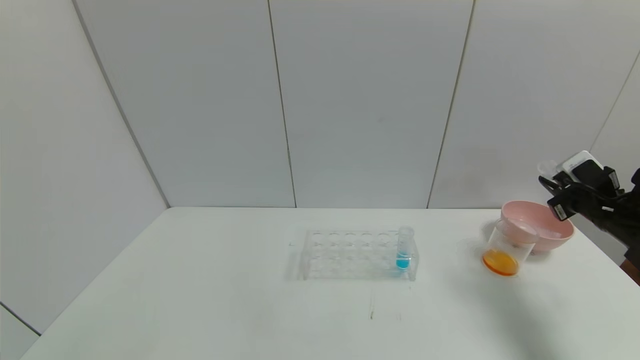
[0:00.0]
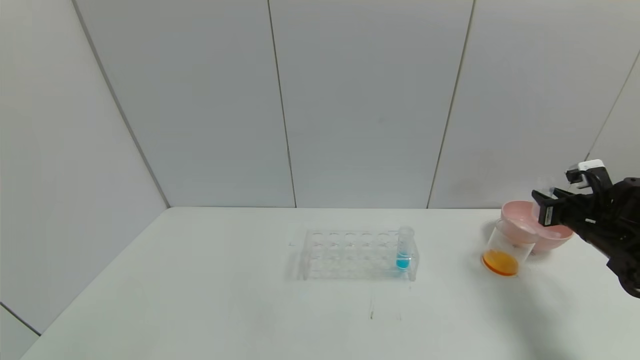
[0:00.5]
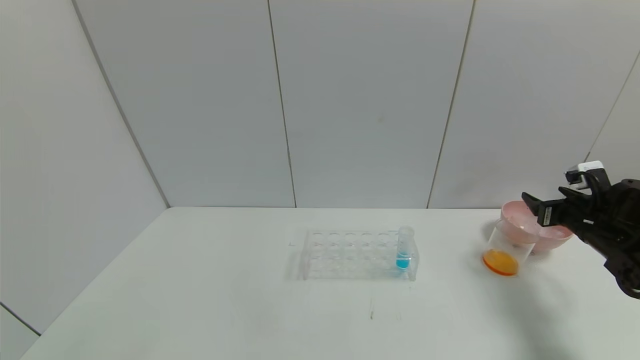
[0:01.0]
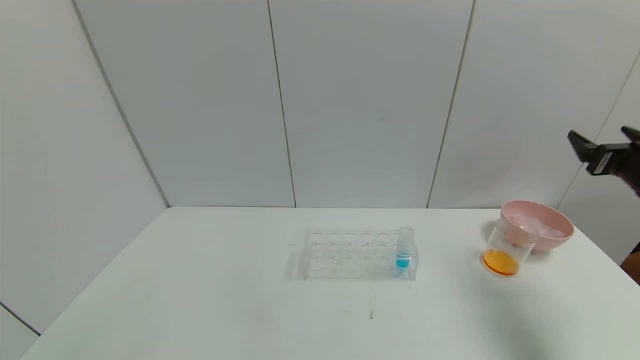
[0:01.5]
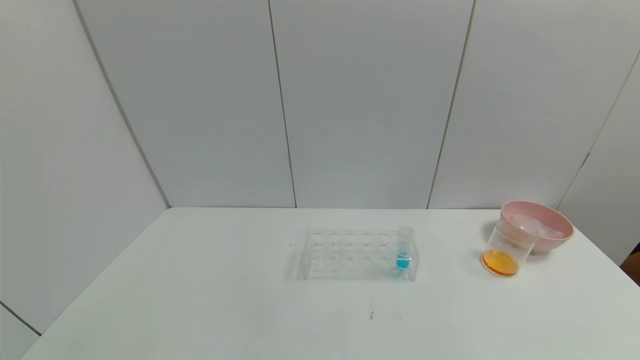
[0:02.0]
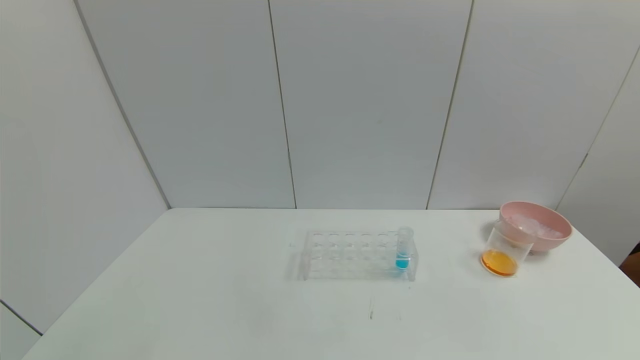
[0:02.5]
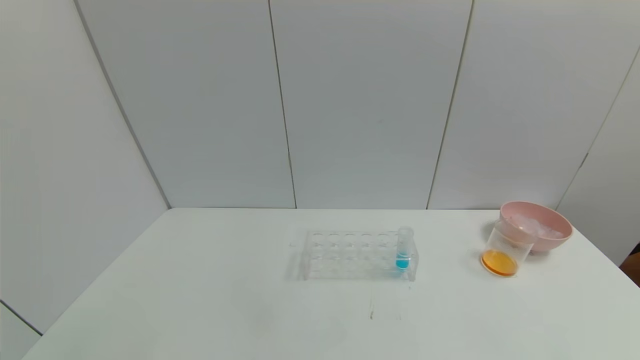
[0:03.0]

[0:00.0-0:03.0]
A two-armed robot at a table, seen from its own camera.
Task of the whole recording: pick up the test tube with yellow pigment and the test tube with red pigment by grippers and pour them into the beaker.
Step, 0:00.5 to 0:01.5: Place the test tube into the bowl with right gripper.
0:00.0 to 0:01.5: The right gripper travels upward by about 5 cm, and opens its fingers.
0:01.5 to 0:03.0: The right gripper heads backward, covering about 35 cm.

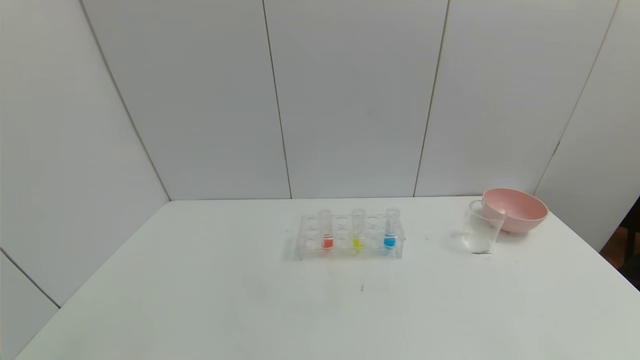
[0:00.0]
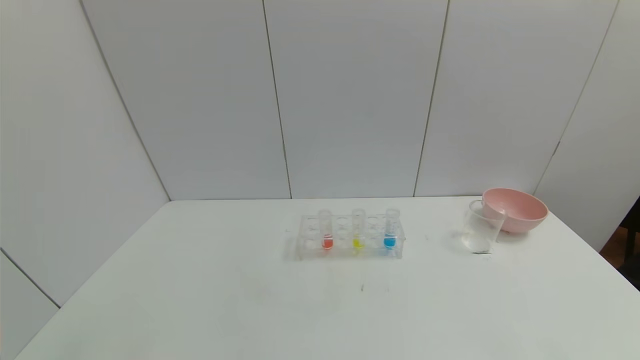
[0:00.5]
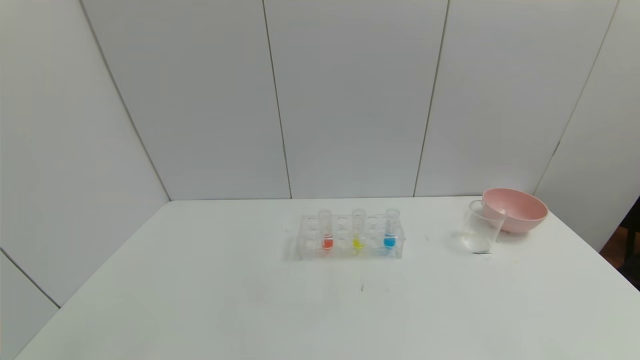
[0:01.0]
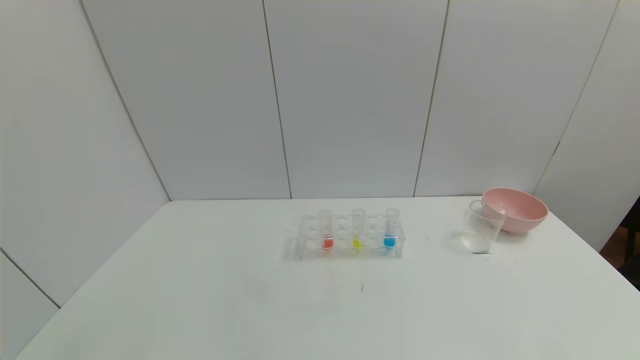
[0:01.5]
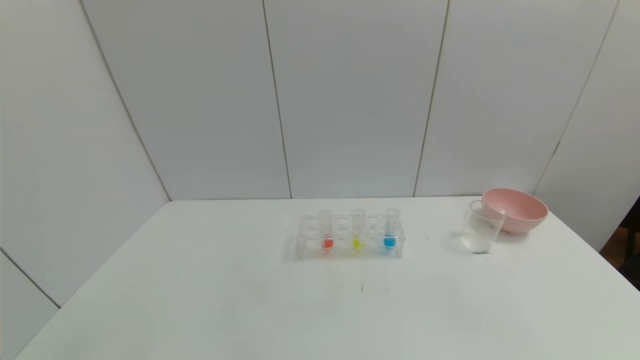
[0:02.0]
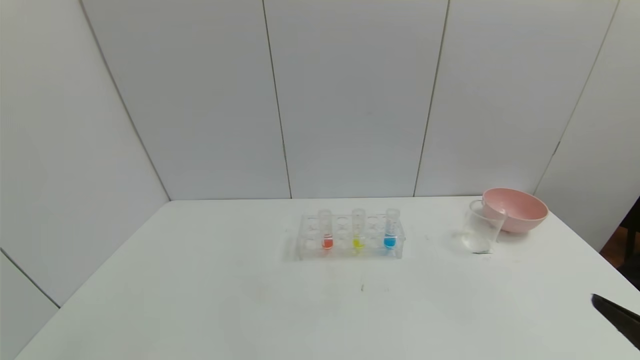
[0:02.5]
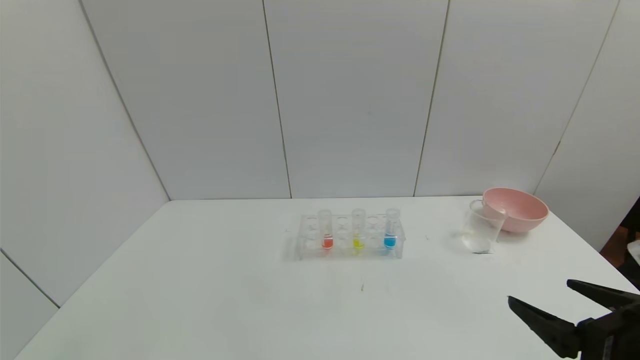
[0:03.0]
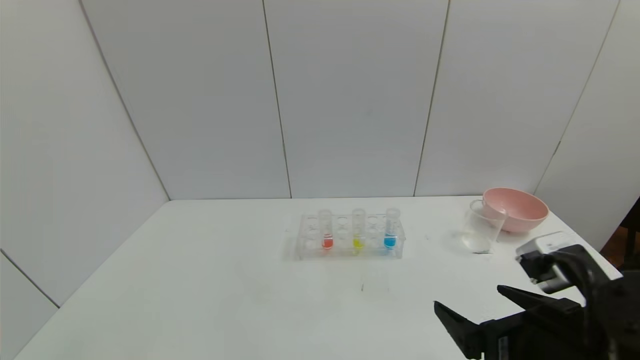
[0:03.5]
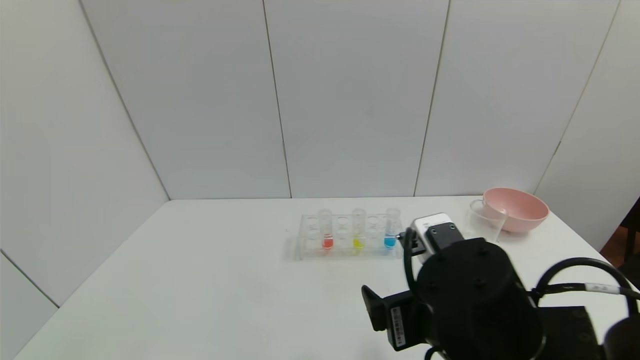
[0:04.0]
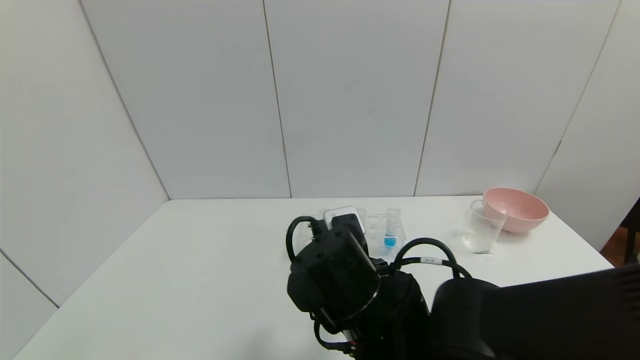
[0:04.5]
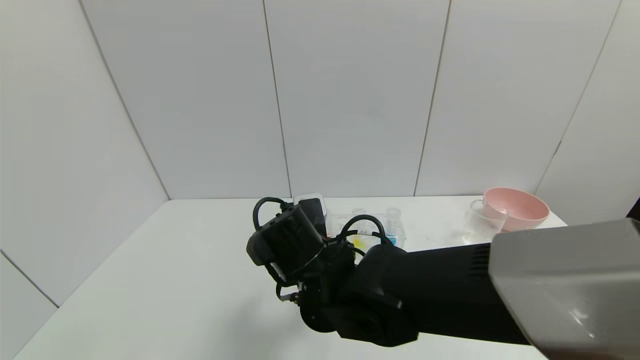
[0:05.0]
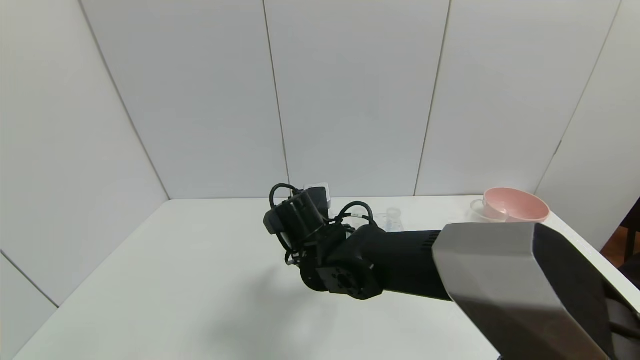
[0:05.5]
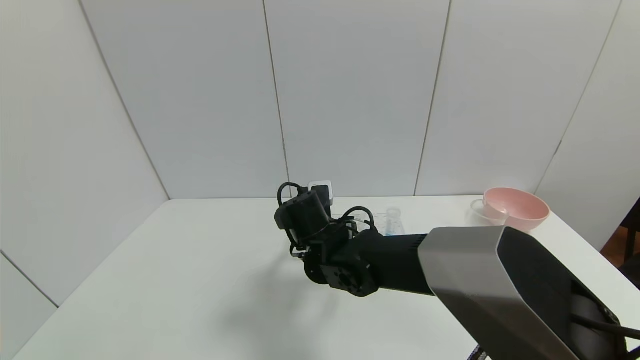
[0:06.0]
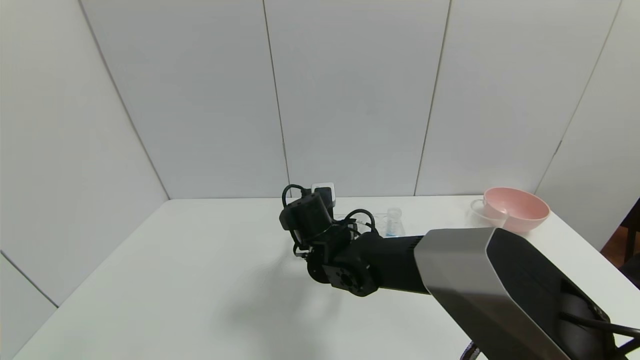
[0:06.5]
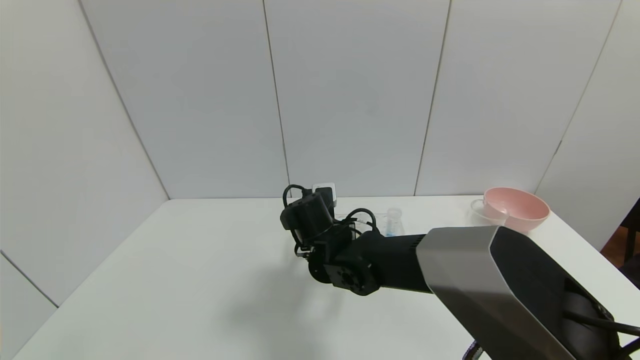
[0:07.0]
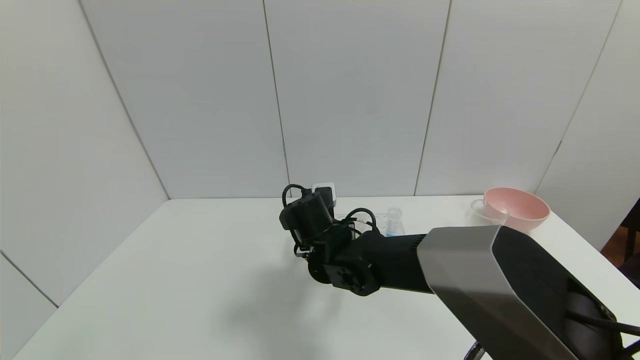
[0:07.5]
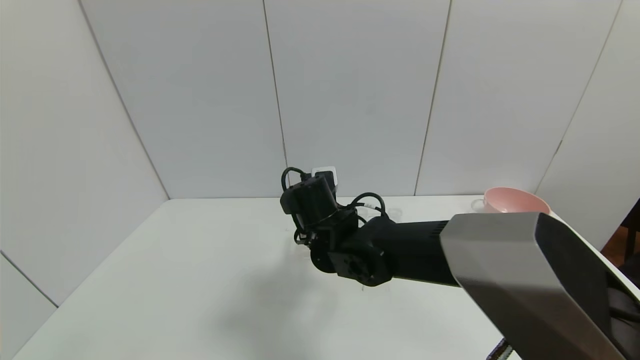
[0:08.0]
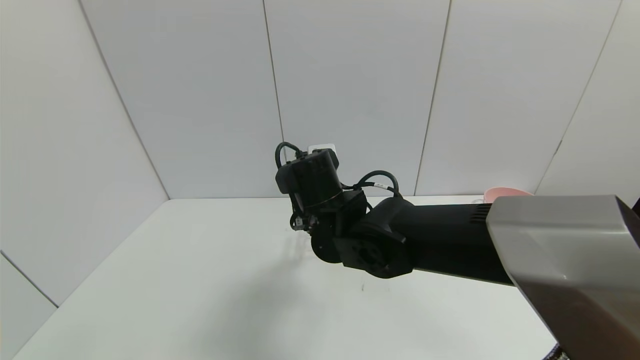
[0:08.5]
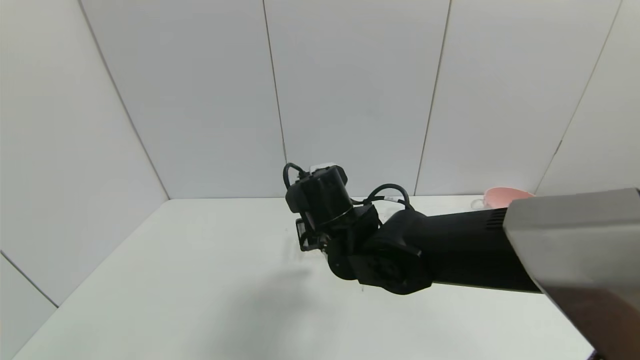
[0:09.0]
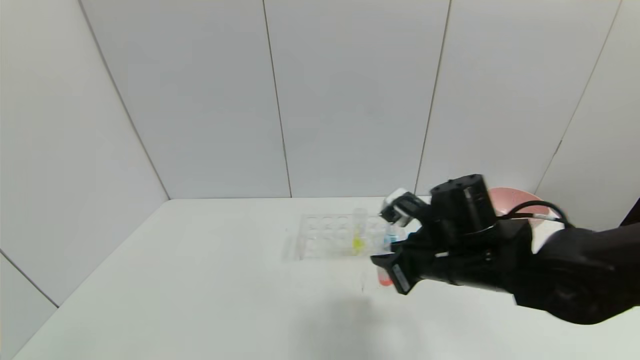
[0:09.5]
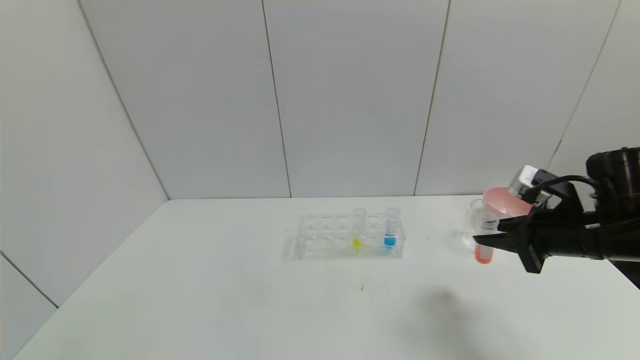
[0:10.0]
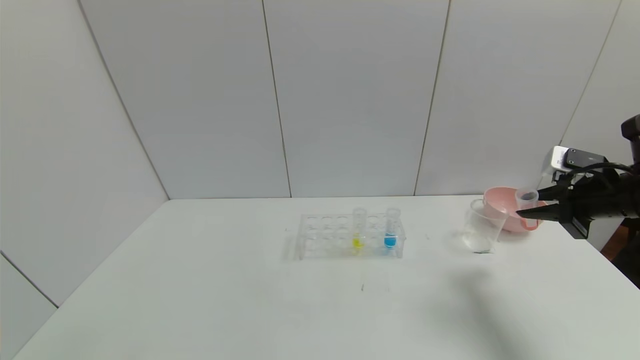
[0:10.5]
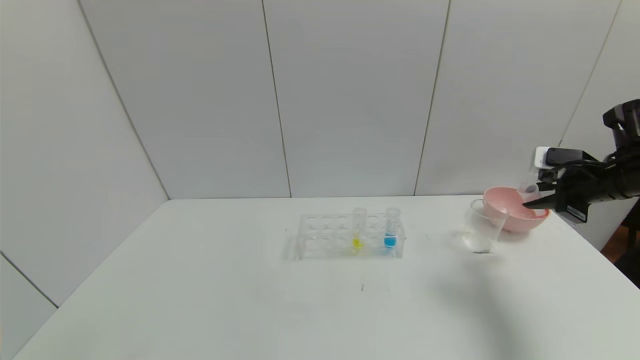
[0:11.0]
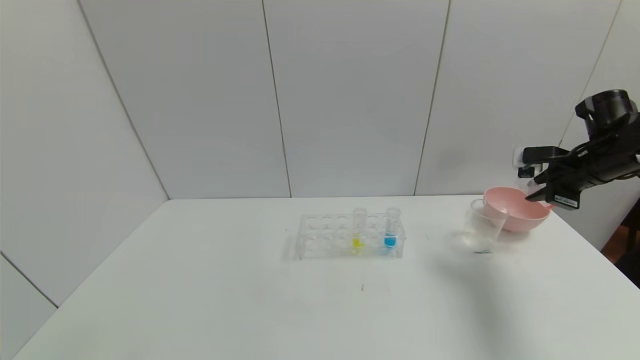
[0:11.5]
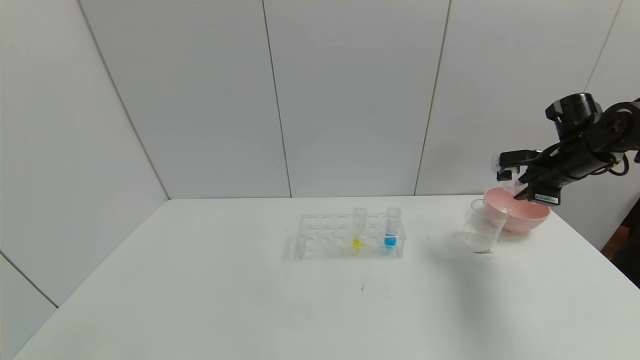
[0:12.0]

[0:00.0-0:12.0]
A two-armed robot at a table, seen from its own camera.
Task of the whole recording: pick up the test tube with yellow pigment and the test tube with red pigment by grippers and pour them into the beaker.
Step, 0:00.0 to 0:07.5: Grasp the red reagent with the right gripper.
0:02.0 to 0:04.0: The right gripper is displaced to the left and forward by roughly 30 cm.
0:04.0 to 0:06.0: The right gripper goes approximately 25 cm forward and to the left.
0:06.0 to 0:08.0: The right gripper closes up.
0:08.0 to 0:10.0: The right gripper goes approximately 35 cm to the right.
0:10.0 to 0:12.0: The right gripper moves forward and to the right, about 15 cm.

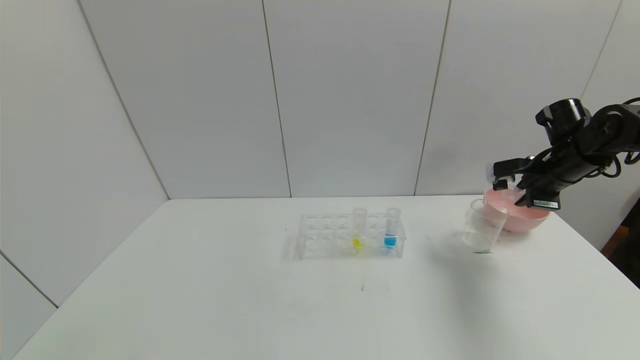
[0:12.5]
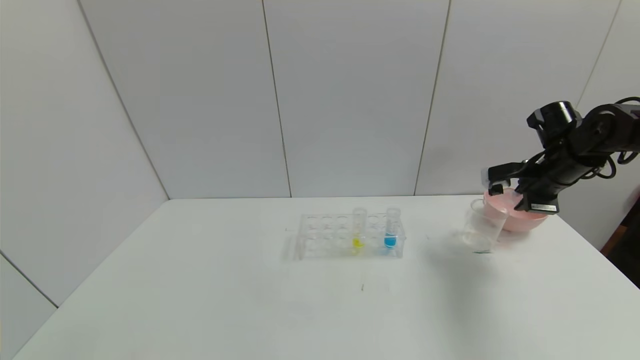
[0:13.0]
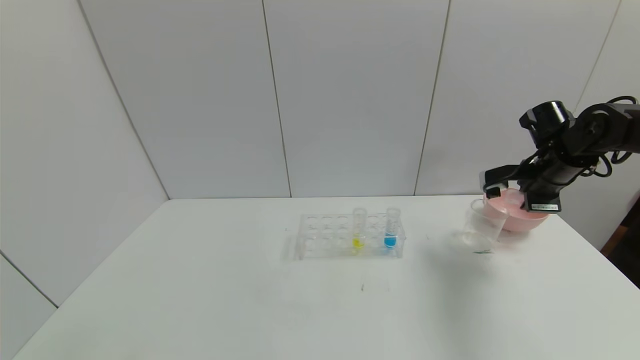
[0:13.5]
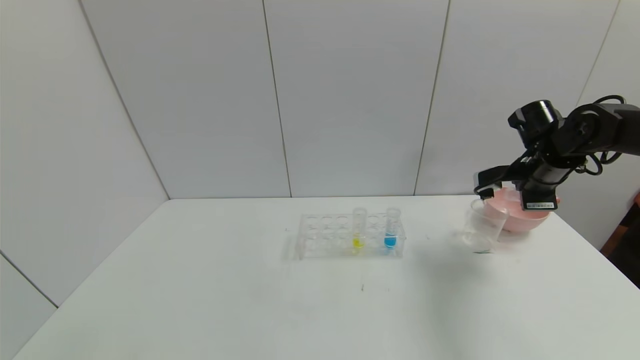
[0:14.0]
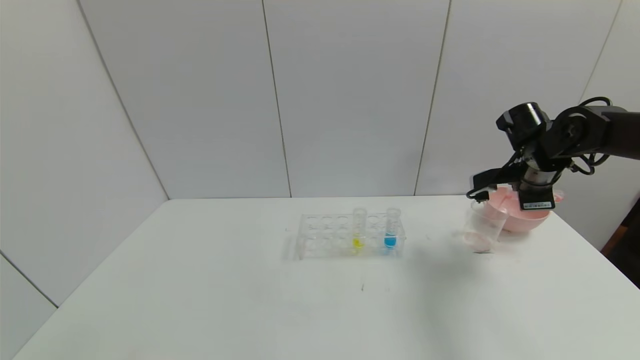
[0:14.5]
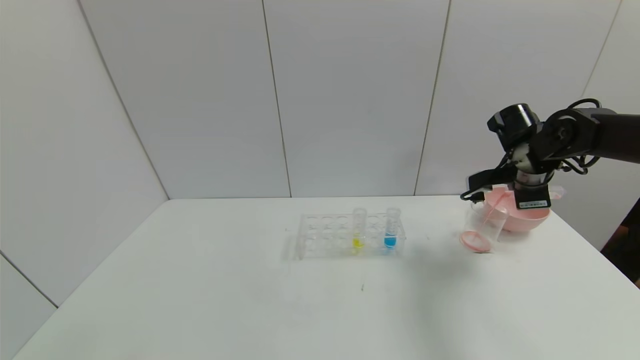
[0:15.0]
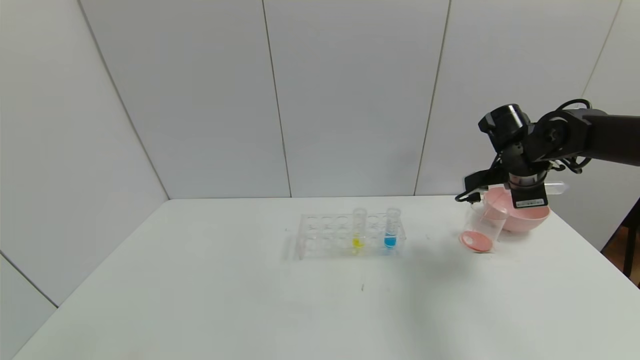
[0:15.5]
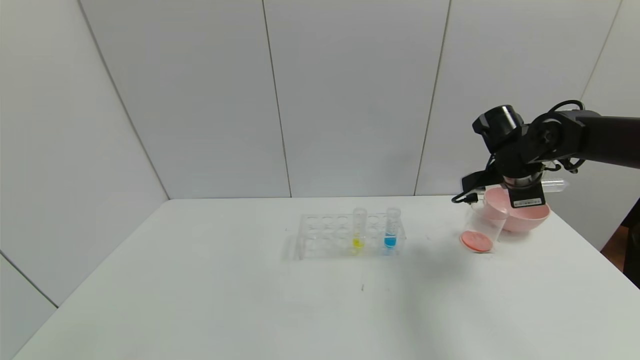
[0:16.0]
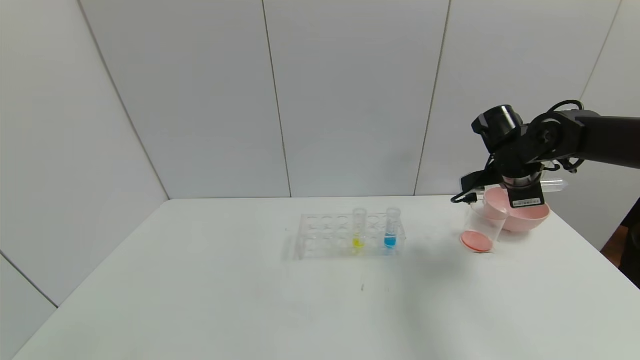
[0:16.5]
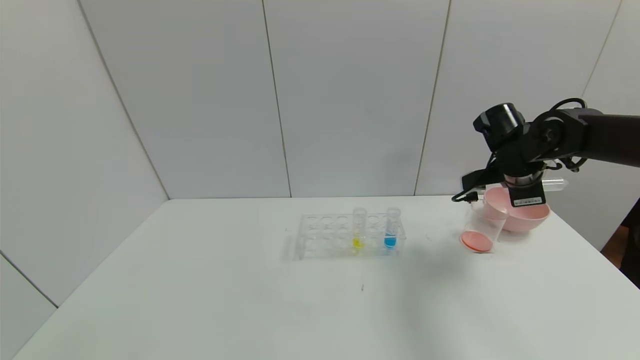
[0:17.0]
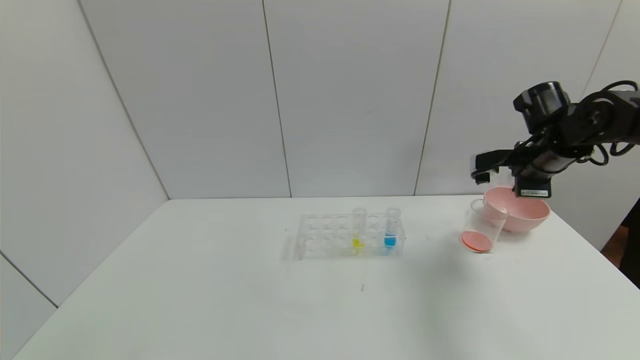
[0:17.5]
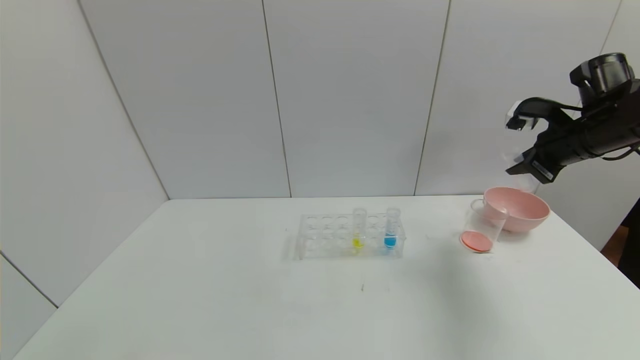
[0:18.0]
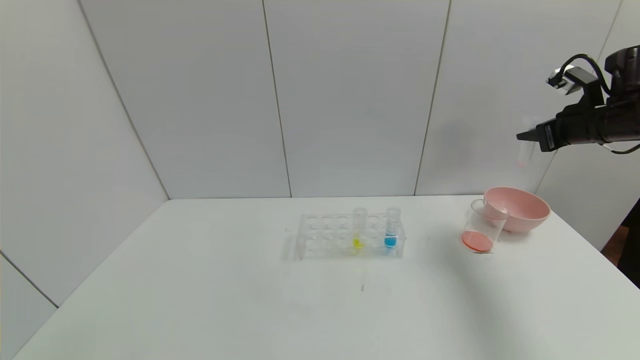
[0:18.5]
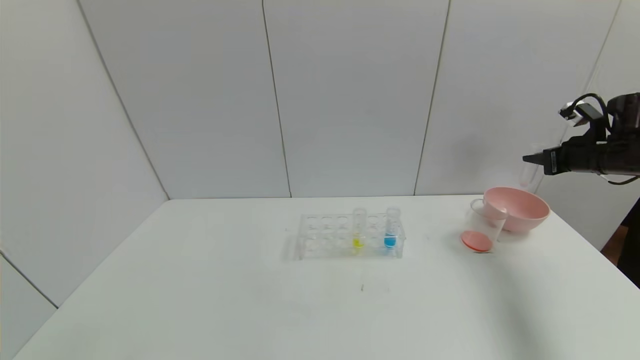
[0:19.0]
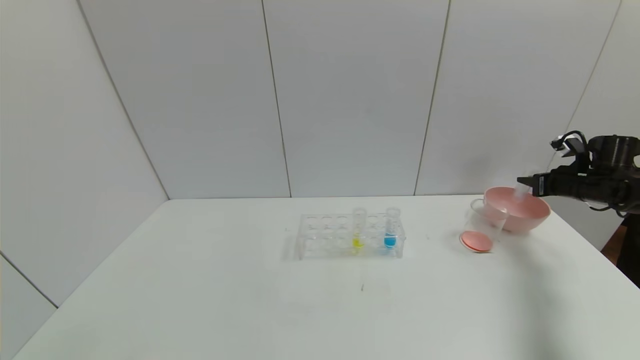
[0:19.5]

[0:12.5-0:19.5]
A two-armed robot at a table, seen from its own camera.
Task of the whole recording: pick up the test tube with yellow pigment and the test tube with red pigment by grippers and pour them into the beaker.
Step, 0:12.5 to 0:16.0: Pour the red reagent into the graduated cylinder with the right gripper.
0:12.5 to 0:14.5: The right gripper goes roughly 5 cm to the left.
0:14.5 to 0:16.0: The grippers make only small movements.
0:16.0 to 0:17.5: The right gripper shifts by roughly 5 cm.
0:17.5 to 0:19.5: The right gripper is displaced to the right and downward by roughly 20 cm.
